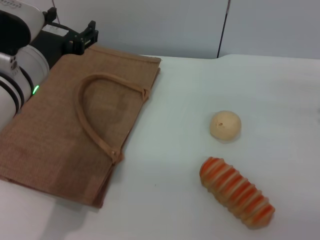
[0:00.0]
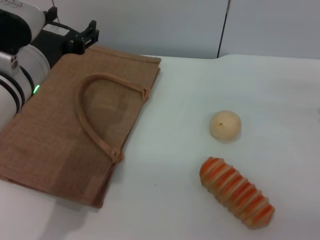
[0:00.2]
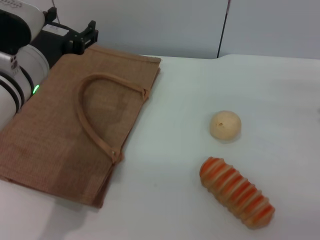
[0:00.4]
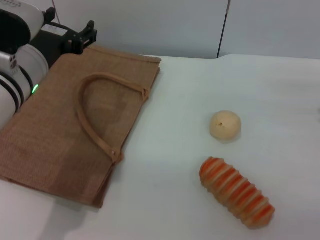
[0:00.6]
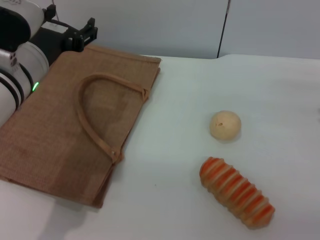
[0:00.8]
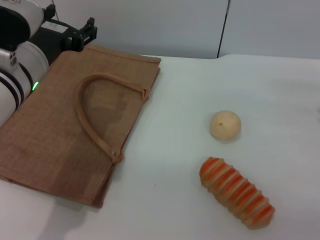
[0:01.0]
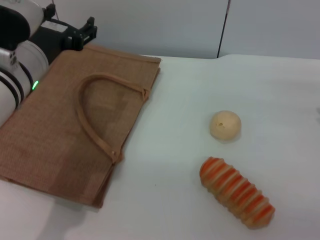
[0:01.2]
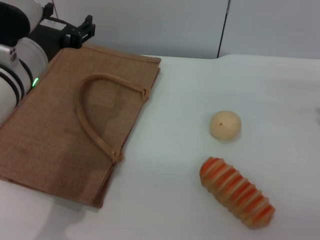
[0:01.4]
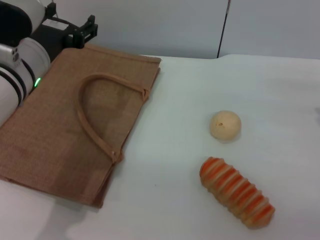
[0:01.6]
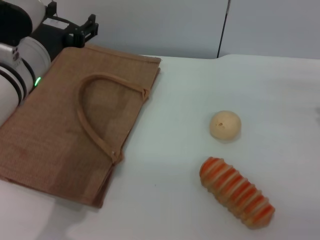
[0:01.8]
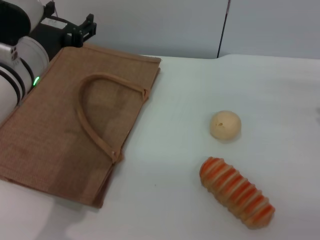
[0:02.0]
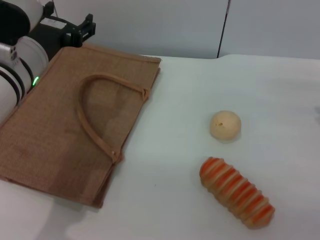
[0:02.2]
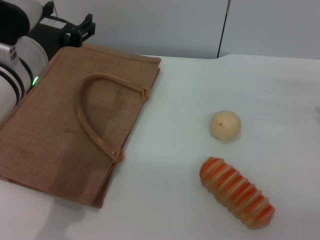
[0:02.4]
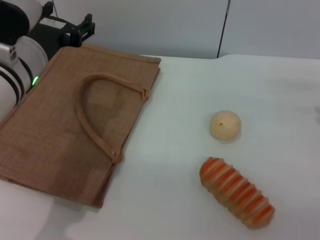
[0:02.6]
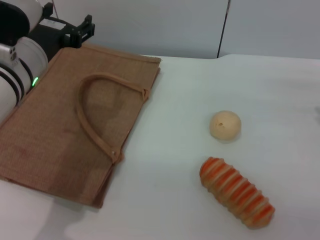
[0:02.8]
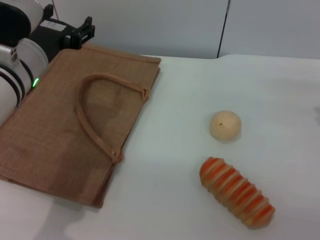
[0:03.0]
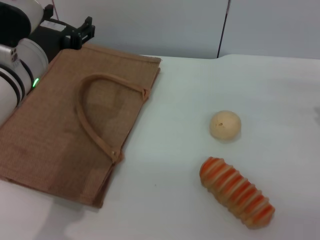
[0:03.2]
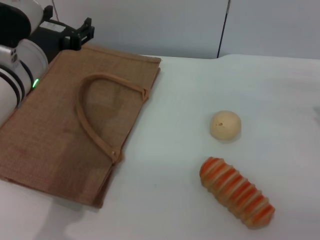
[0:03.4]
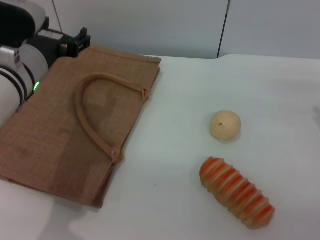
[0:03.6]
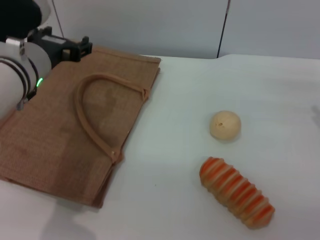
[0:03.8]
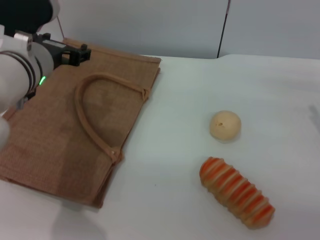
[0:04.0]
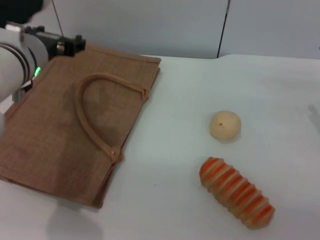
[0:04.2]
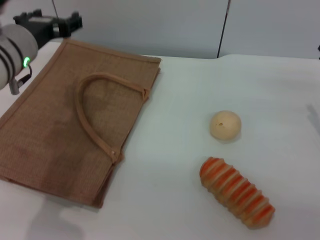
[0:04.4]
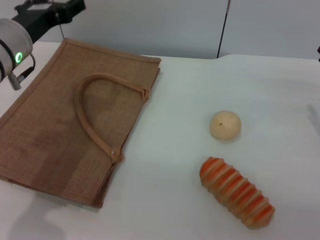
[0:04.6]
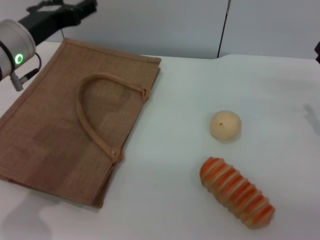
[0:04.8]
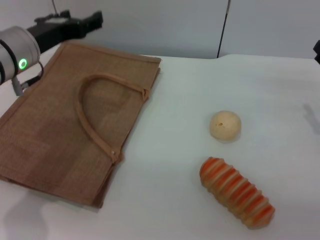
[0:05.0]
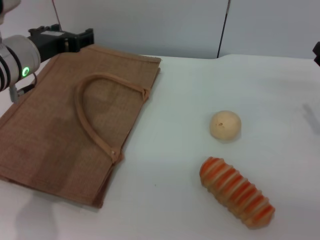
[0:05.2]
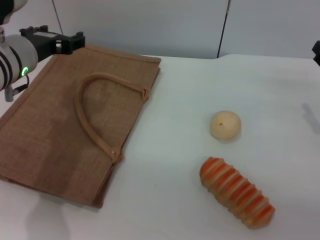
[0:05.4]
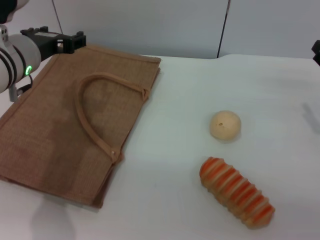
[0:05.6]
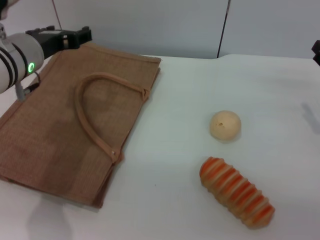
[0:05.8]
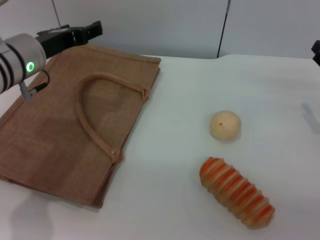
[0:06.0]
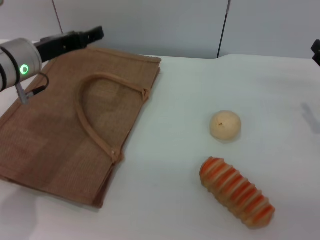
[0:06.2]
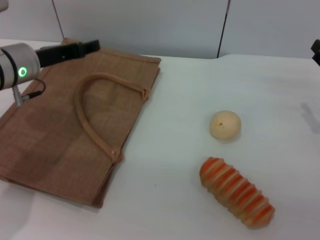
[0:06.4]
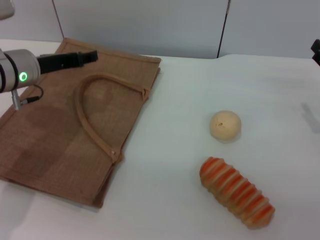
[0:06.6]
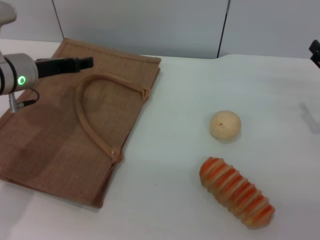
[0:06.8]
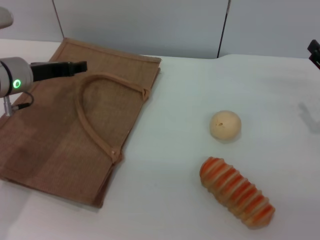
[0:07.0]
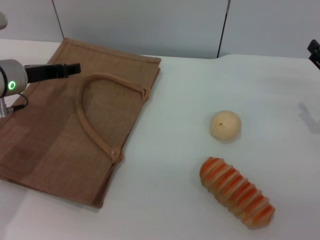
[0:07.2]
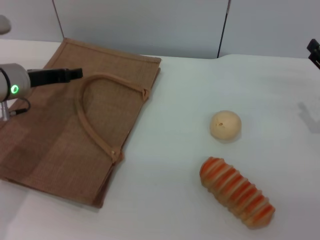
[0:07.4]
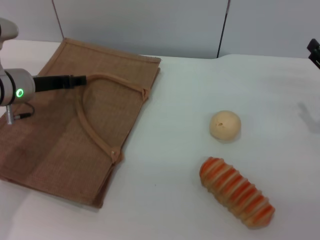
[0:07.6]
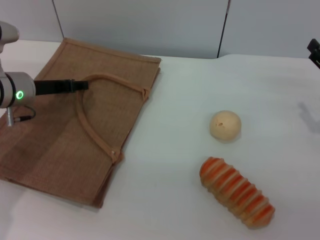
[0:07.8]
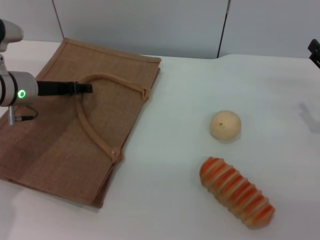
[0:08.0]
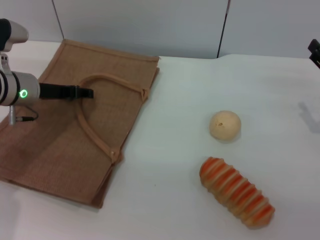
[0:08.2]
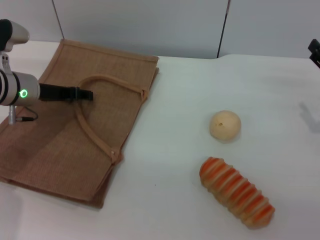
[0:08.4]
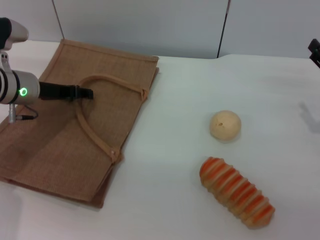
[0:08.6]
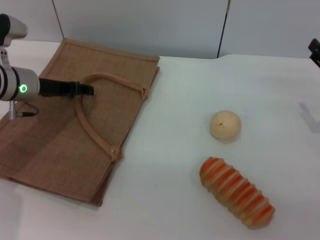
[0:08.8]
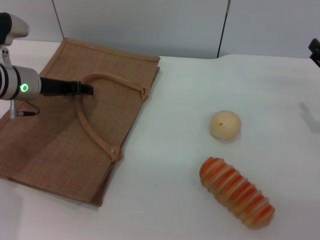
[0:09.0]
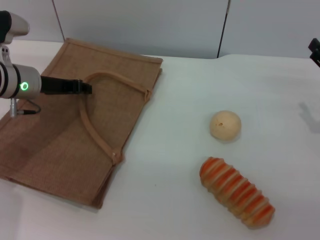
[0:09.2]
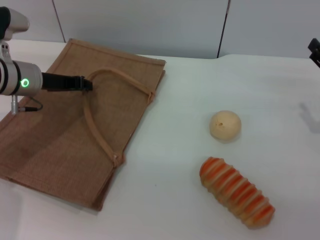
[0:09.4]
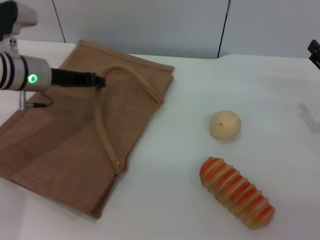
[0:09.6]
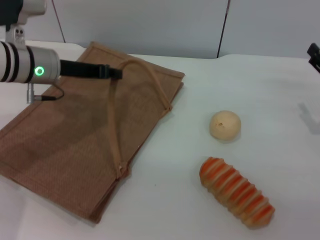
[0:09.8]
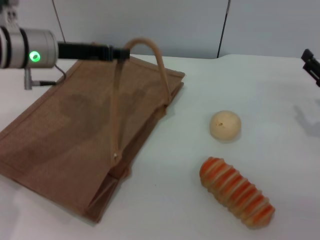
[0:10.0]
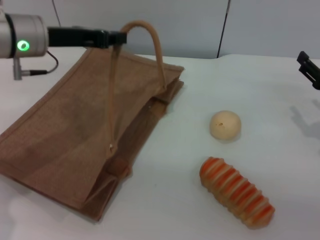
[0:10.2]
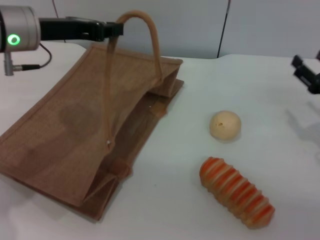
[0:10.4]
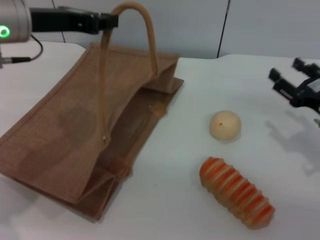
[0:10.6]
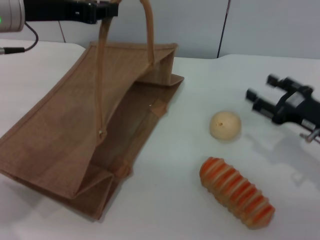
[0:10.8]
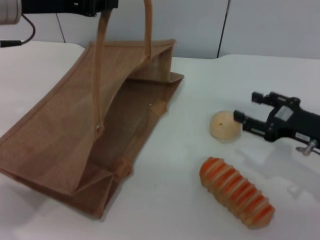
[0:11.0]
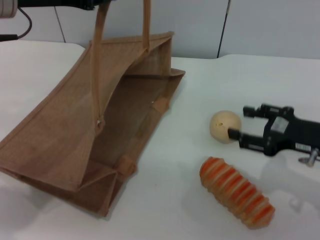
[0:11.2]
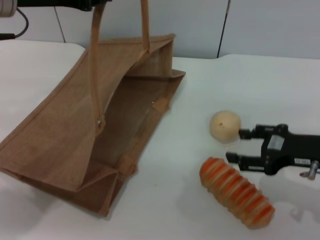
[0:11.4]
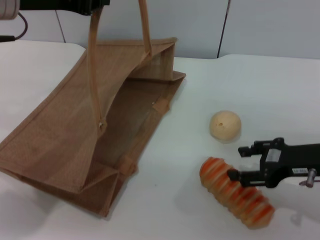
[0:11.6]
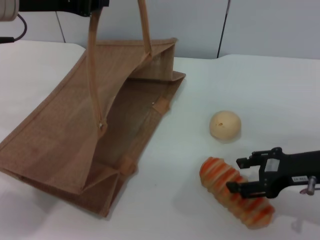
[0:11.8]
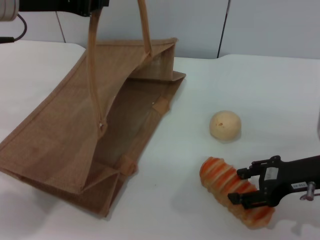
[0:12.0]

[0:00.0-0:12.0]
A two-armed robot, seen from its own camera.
Task of the whole recording: pick up the bread and egg yolk pastry from the table and place it in the brown handbag.
Step, 0:00.0 to 0:09.4: Lift the woven bag with the left gripper to open it.
0:00.0 to 0:03.0: Both grippers stay about where they are.
0:03.0 to 0:04.4: The grippers move only a little.
0:04.4 to 0:06.0: There are only small adjustments of the grippers.
0:06.0 to 0:07.6: The left gripper moves downward, about 5 cm.
0:07.6 to 0:09.0: The grippers move only a little.
0:09.0 to 0:10.4: The left gripper heads upward, covering about 10 cm, and closes its fingers.
0:10.4 to 0:12.0: The left gripper travels upward by some 5 cm. Meanwhile the right gripper heads to the left, covering about 5 cm.

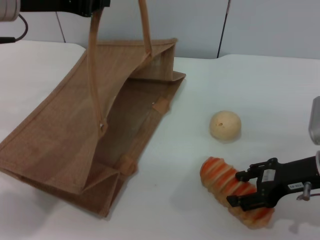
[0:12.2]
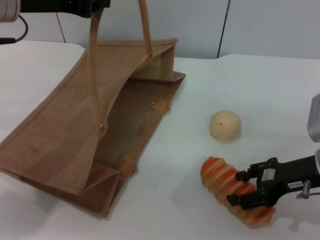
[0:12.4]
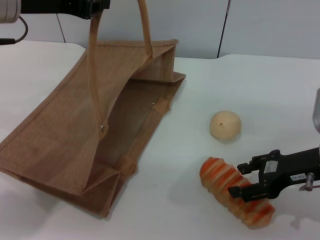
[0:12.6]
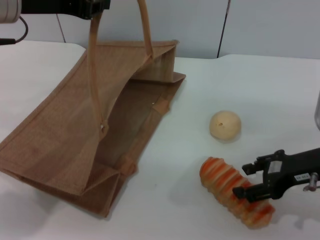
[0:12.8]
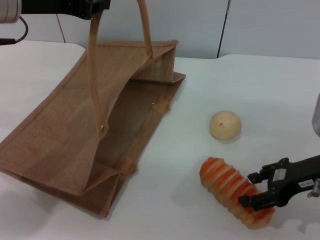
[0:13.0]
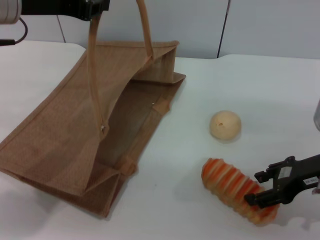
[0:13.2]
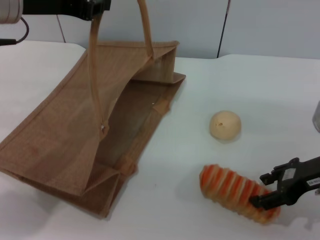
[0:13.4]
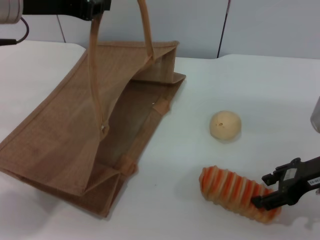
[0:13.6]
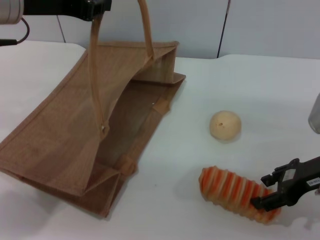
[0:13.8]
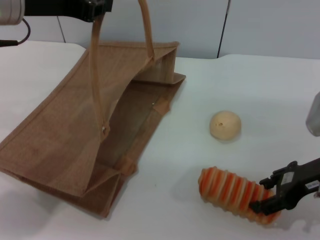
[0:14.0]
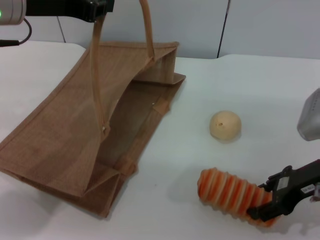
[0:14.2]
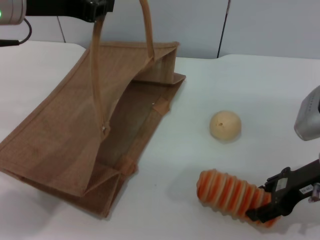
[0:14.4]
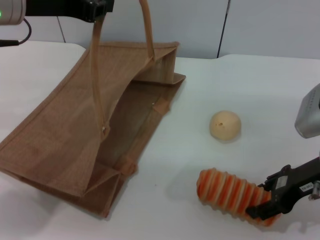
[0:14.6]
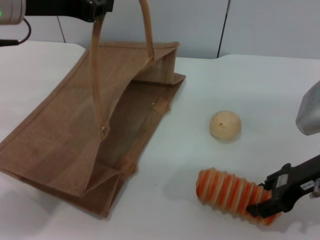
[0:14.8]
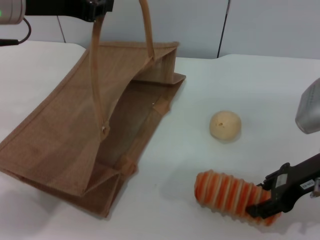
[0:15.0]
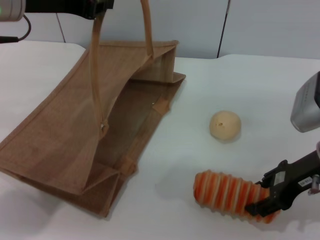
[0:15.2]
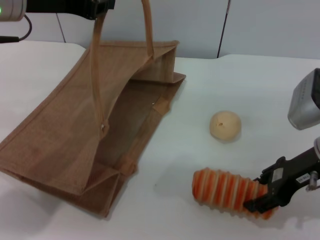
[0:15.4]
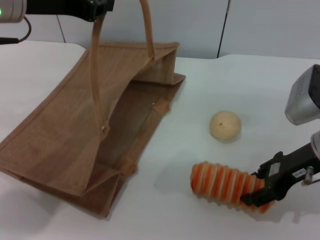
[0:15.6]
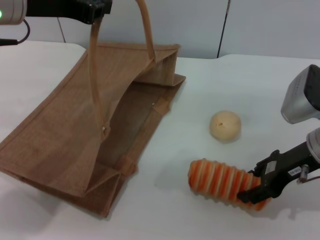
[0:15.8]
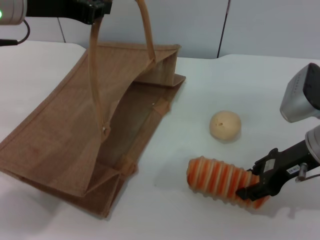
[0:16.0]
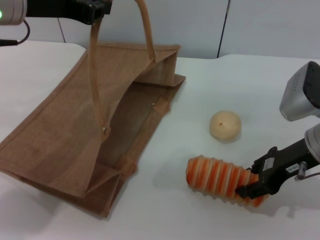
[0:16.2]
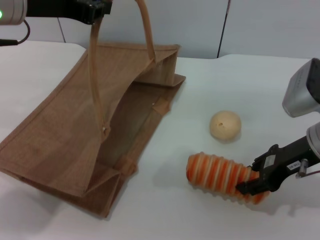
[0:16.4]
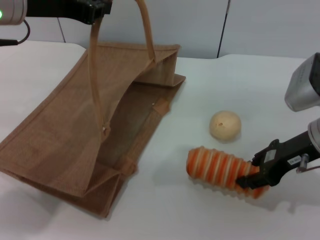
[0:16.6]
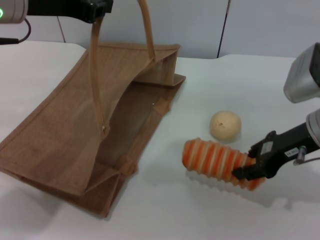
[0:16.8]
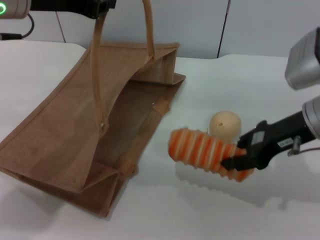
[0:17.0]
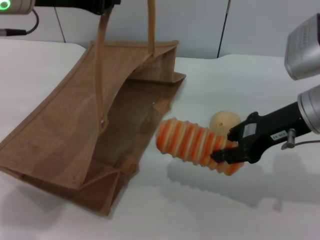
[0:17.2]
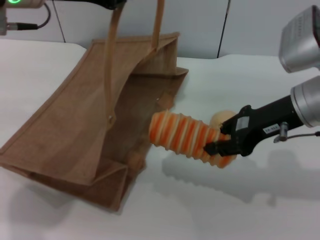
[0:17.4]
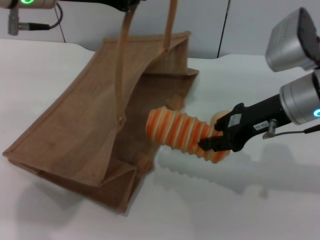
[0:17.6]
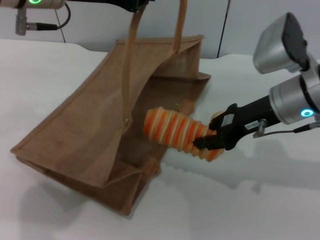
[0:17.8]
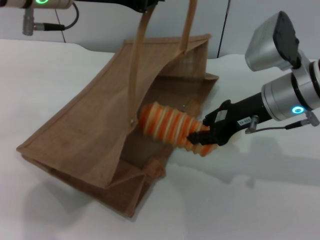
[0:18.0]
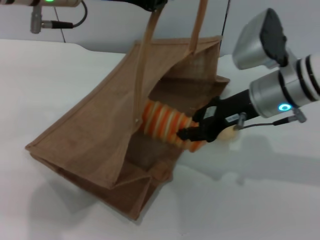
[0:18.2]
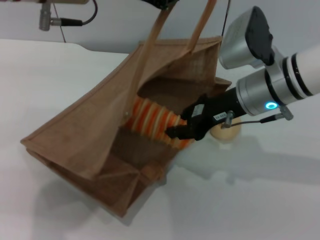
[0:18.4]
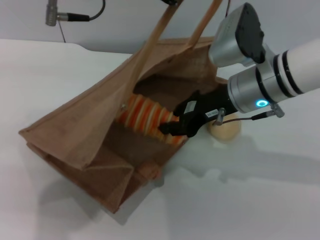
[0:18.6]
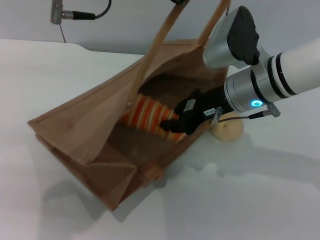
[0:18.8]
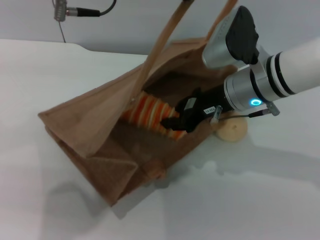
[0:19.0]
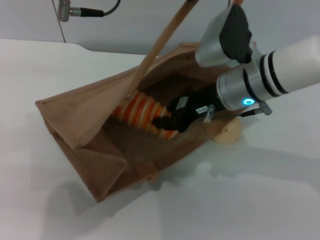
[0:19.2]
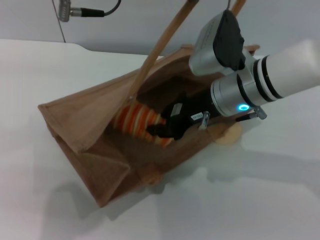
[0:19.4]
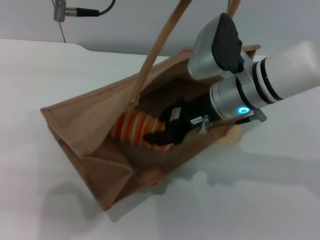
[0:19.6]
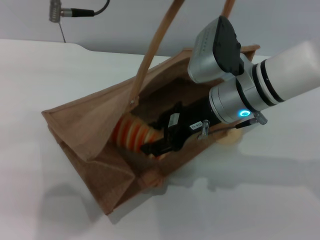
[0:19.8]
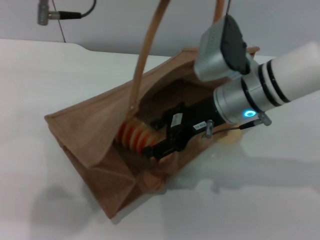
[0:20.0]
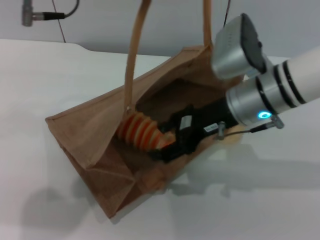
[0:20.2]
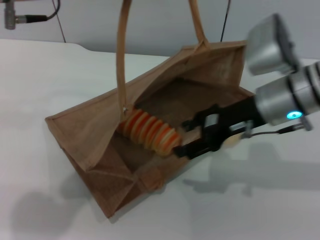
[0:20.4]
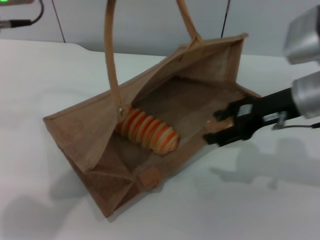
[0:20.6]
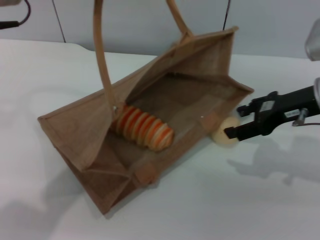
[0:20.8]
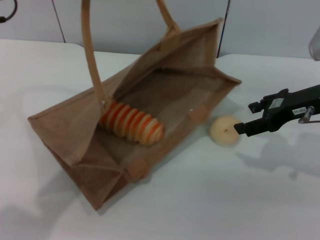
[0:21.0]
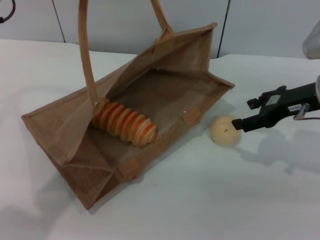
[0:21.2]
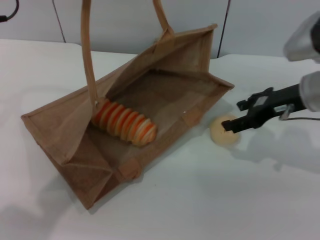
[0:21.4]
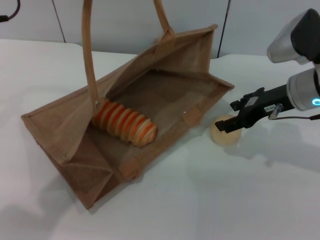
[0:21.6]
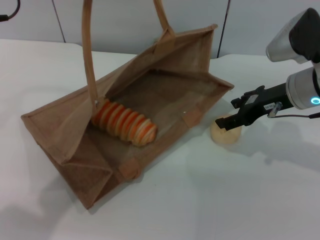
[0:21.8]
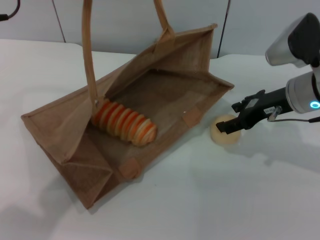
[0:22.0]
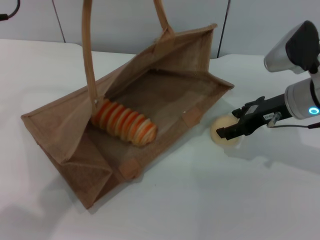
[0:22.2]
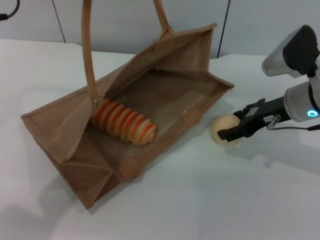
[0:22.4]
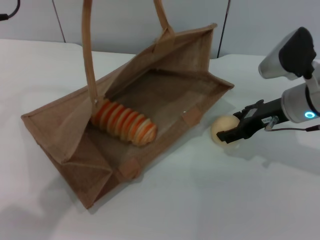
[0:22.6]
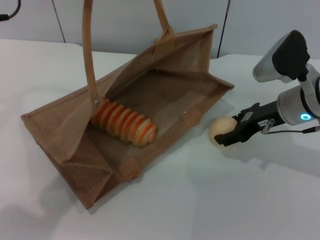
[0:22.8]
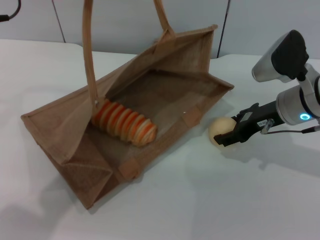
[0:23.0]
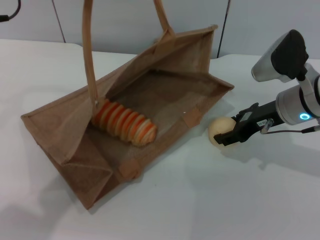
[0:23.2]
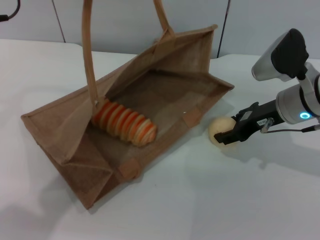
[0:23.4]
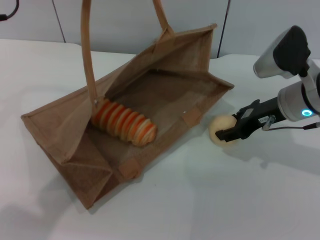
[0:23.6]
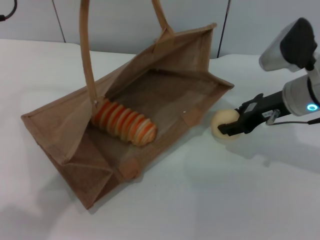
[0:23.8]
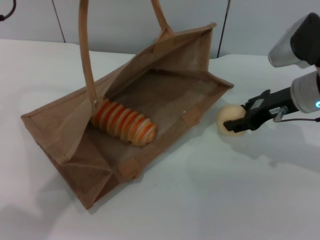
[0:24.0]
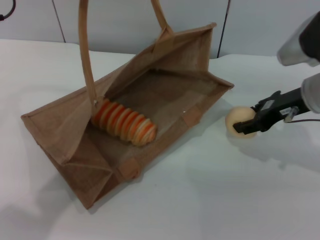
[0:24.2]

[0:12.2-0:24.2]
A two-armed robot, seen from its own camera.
Task of the whole recording: pick up the bread and egg yolk pastry from the table and place it in the brown handbag.
Step, 0:12.2 to 0:17.0: Pick up the bread with the right gripper.
Step, 0:17.2 to 0:20.6: Place the bread into the woven bag with the right gripper.
0:12.2 to 0:16.6: The grippers stay close to where they were, moving slightly.
0:16.6 to 0:18.2: The right gripper is displaced to the left by about 10 cm. Meanwhile the left gripper heads to the right, covering some 5 cm.
0:18.2 to 0:19.8: The right gripper travels to the left by some 5 cm.
0:19.8 to 0:21.2: The right gripper travels to the right by approximately 15 cm, and opens its fingers. The left gripper travels to the left by approximately 10 cm.
0:21.2 to 0:22.6: The right gripper moves roughly 5 cm.
0:22.6 to 0:24.2: The grippers make only small movements.
